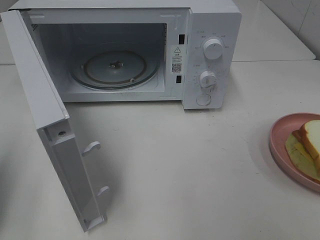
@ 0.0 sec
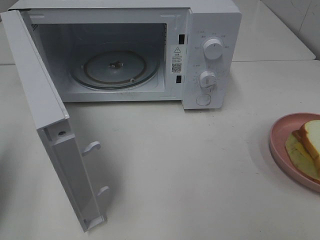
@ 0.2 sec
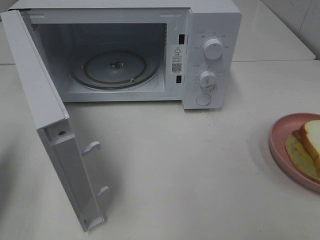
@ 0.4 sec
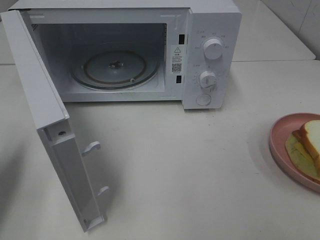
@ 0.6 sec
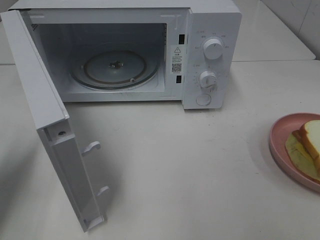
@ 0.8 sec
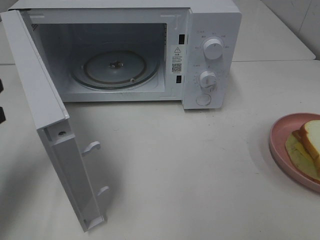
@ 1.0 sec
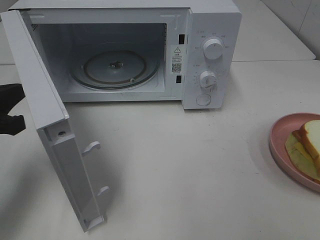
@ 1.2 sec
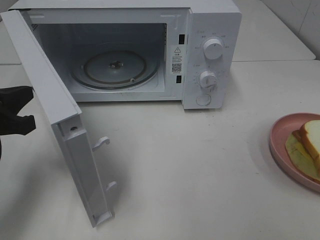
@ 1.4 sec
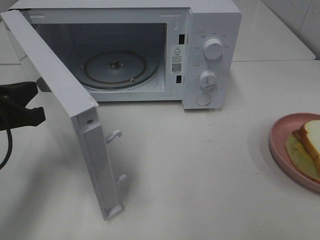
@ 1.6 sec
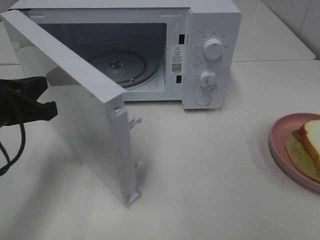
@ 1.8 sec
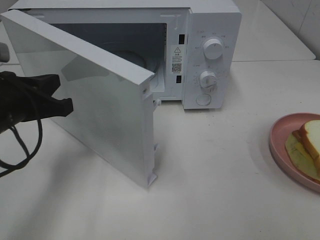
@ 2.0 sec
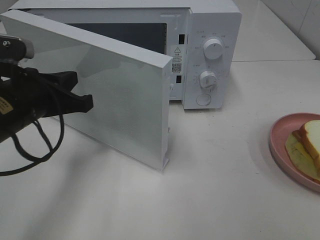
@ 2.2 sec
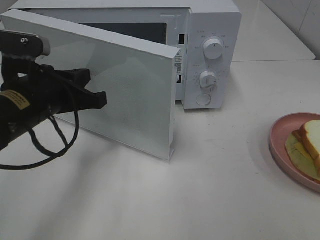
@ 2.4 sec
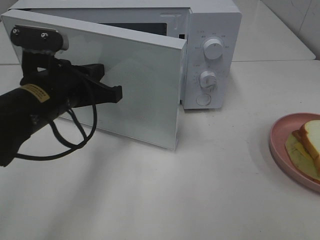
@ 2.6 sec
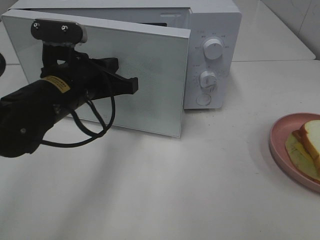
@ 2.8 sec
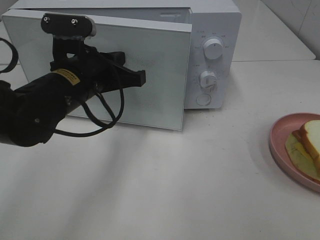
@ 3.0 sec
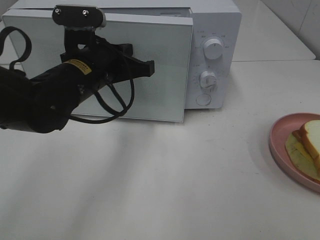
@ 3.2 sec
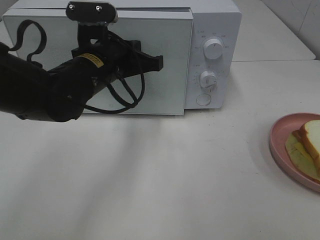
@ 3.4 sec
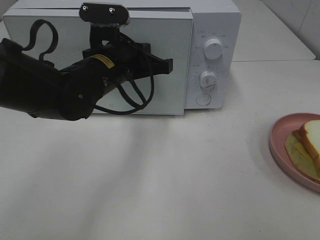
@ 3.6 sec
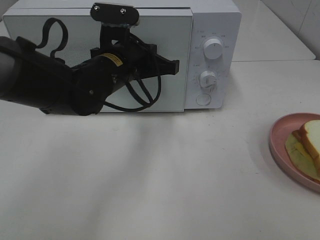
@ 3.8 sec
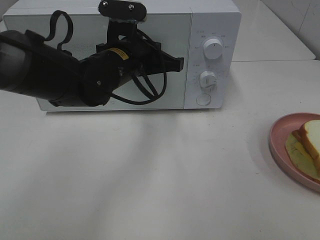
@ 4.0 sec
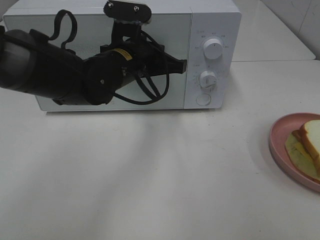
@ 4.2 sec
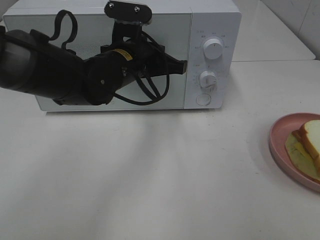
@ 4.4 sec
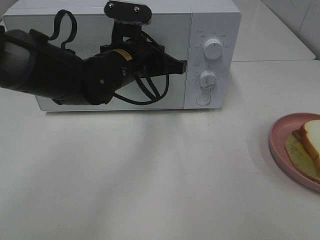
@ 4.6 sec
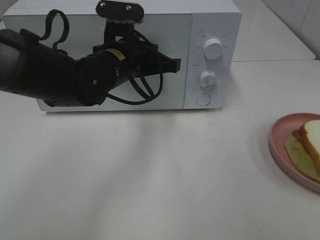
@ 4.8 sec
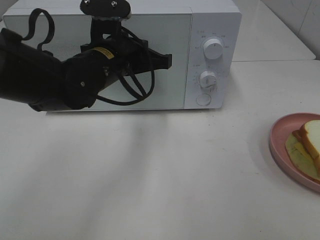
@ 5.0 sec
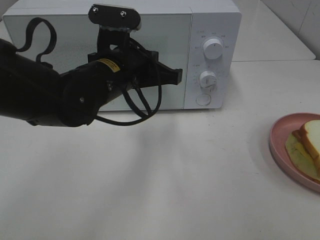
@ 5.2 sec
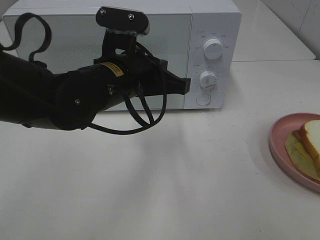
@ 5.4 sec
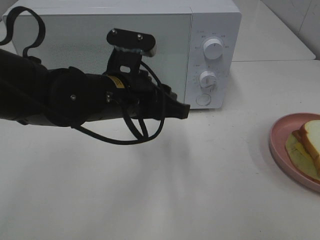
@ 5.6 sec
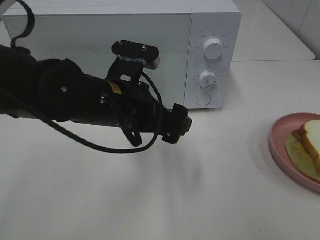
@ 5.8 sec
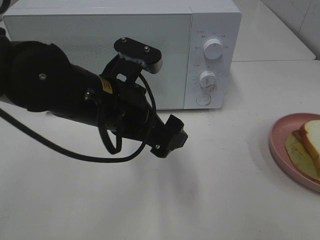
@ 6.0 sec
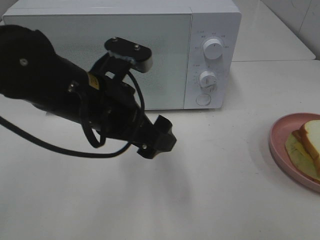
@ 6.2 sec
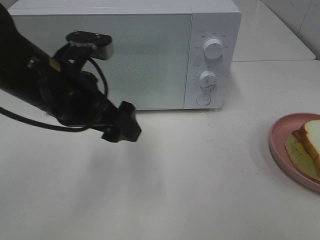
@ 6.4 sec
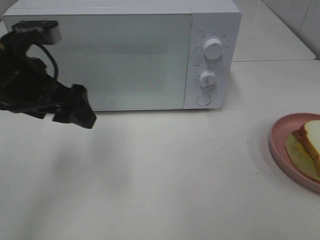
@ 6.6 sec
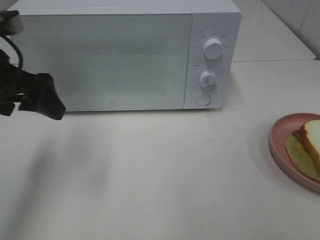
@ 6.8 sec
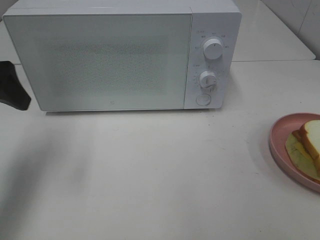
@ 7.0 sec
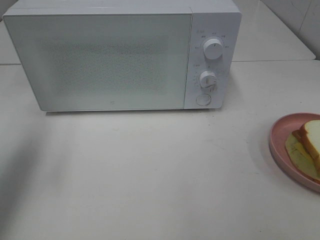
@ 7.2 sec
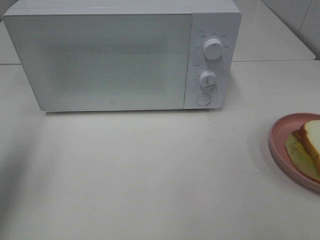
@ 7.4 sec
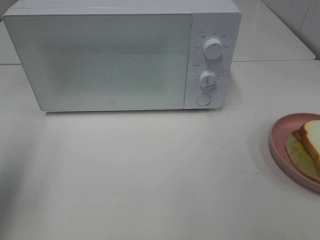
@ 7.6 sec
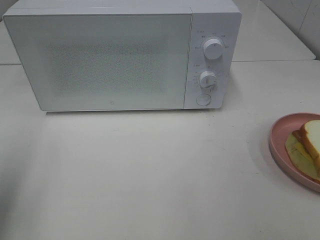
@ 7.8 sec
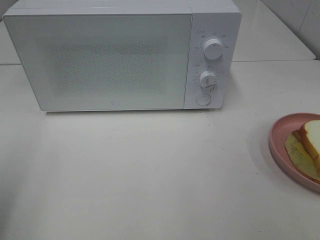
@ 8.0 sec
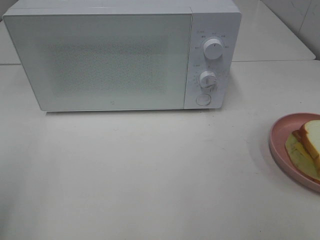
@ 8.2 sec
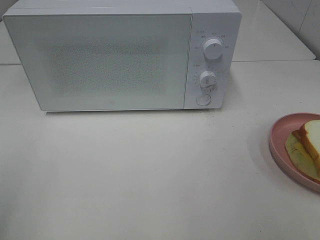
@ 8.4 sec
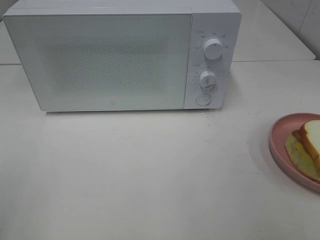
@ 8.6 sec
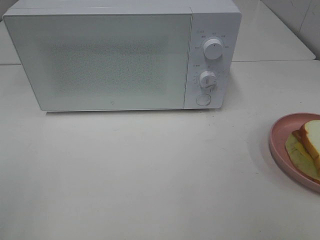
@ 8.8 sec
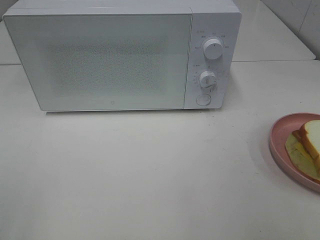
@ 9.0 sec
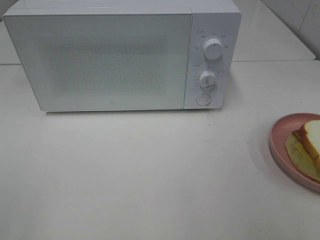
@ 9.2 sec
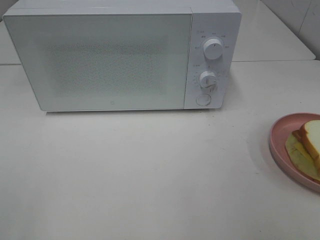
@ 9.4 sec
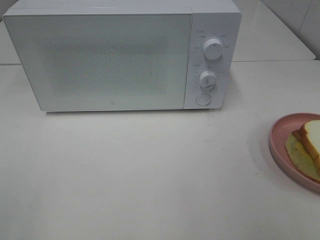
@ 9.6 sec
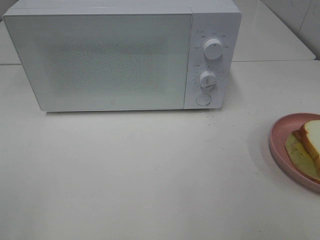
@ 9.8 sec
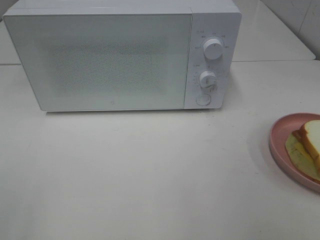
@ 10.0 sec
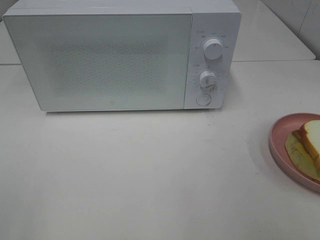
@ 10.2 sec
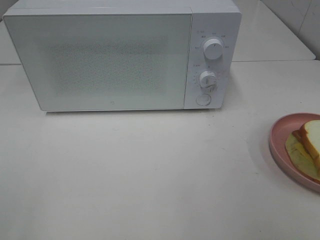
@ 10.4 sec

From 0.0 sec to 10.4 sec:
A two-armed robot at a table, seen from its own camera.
Task of the whole recording: Heat Sandwich.
Step, from 0.0 sec to 5.6 sec: Left hand: close the microwave door.
From 0.0 sec to 1.4 sec: The left gripper is displaced to the right, forward and downward by approximately 10 cm.
From 1.4 sec to 3.0 sec: The left gripper goes roughly 15 cm to the right and forward.
From 3.0 sec to 4.4 sec: The left gripper is displaced to the right and forward by approximately 10 cm.
From 4.4 sec to 6.0 sec: The left gripper travels backward by approximately 10 cm, and opens.
From 6.0 sec to 7.4 sec: The left gripper moves to the left, some 25 cm.
From 7.4 sec to 9.0 sec: The left gripper moves backward, roughly 20 cm.
From 9.0 sec to 10.4 sec: Both grippers stay about where they are.
